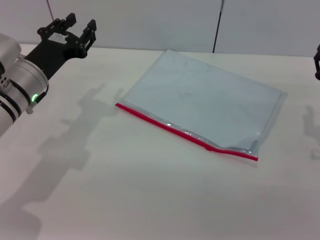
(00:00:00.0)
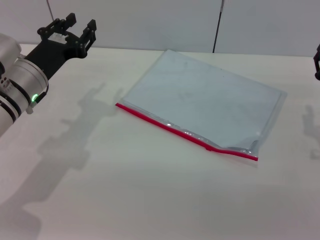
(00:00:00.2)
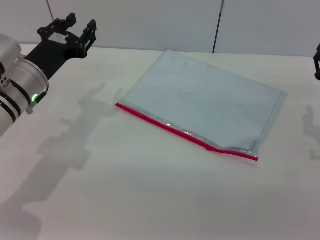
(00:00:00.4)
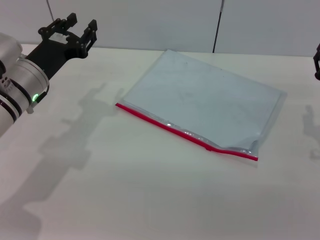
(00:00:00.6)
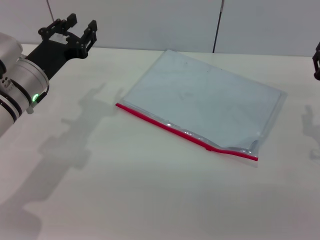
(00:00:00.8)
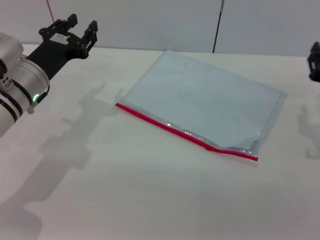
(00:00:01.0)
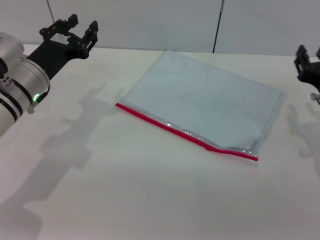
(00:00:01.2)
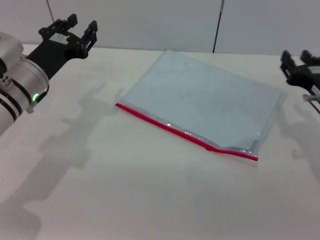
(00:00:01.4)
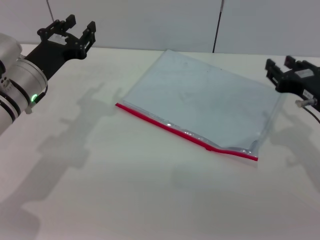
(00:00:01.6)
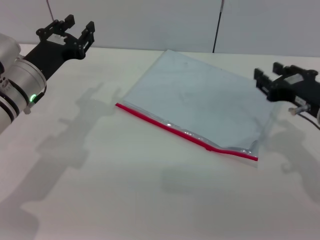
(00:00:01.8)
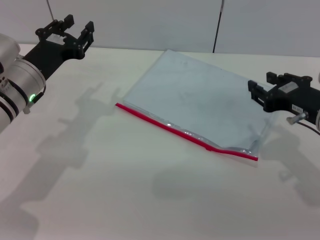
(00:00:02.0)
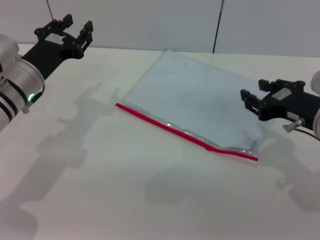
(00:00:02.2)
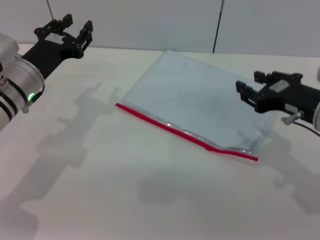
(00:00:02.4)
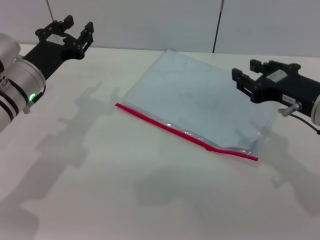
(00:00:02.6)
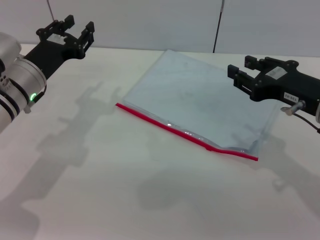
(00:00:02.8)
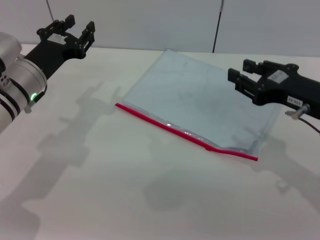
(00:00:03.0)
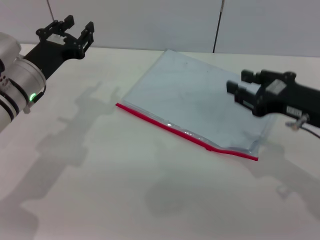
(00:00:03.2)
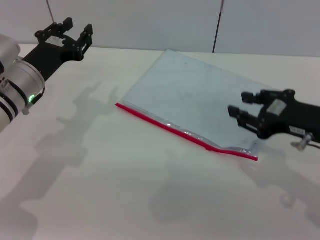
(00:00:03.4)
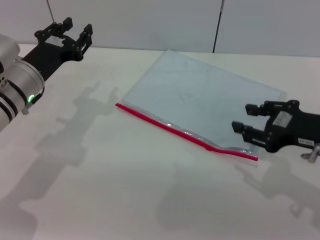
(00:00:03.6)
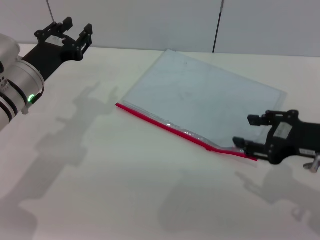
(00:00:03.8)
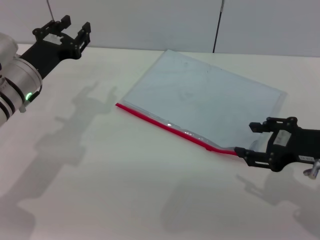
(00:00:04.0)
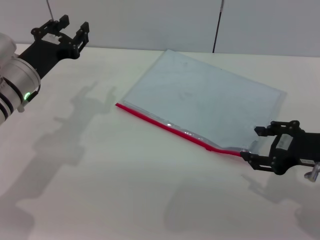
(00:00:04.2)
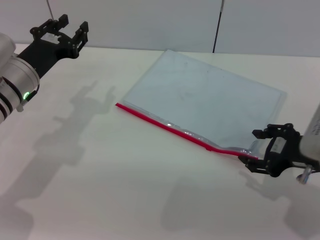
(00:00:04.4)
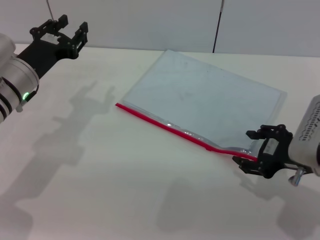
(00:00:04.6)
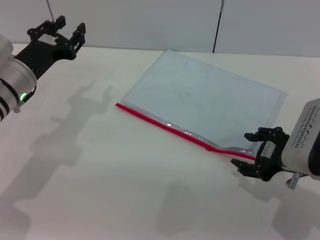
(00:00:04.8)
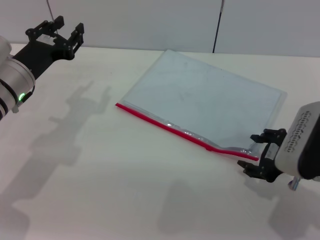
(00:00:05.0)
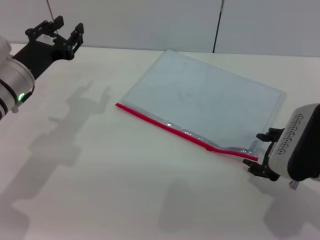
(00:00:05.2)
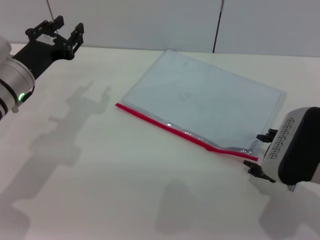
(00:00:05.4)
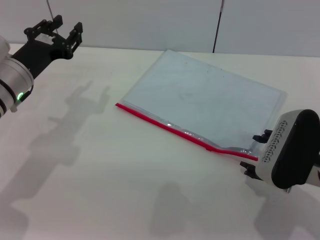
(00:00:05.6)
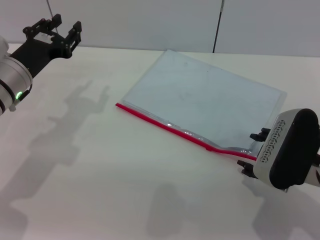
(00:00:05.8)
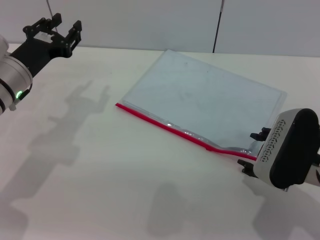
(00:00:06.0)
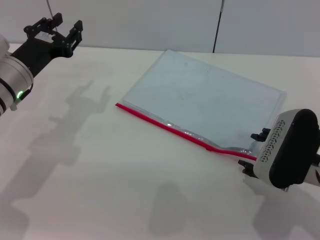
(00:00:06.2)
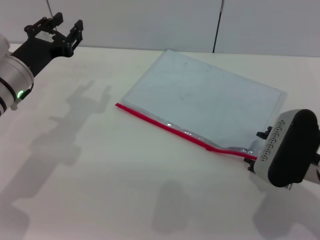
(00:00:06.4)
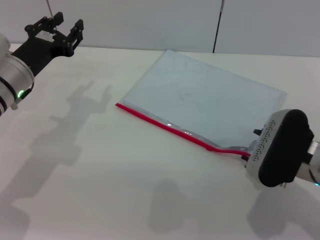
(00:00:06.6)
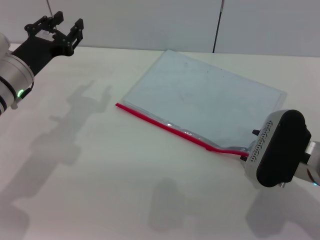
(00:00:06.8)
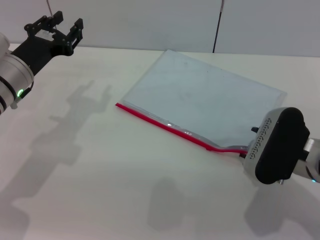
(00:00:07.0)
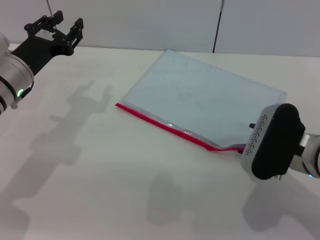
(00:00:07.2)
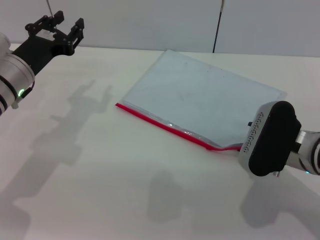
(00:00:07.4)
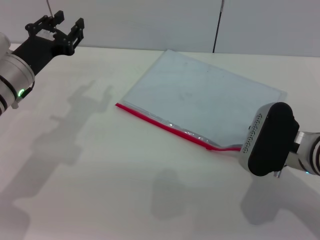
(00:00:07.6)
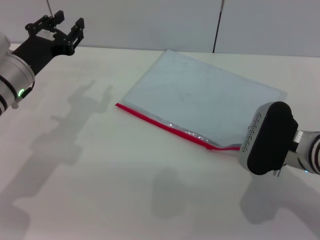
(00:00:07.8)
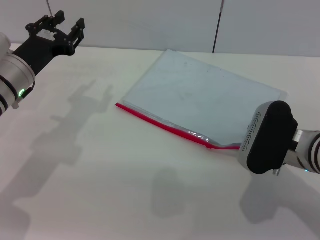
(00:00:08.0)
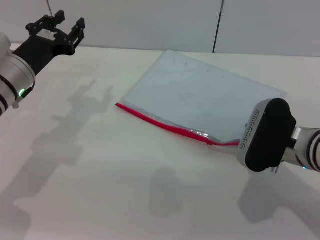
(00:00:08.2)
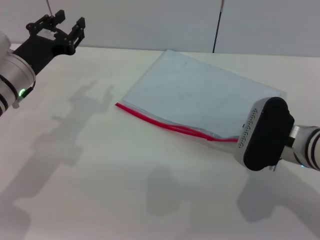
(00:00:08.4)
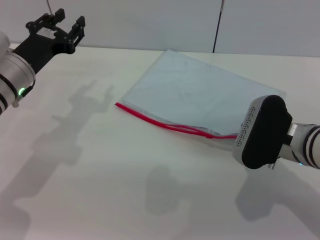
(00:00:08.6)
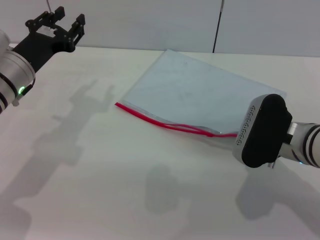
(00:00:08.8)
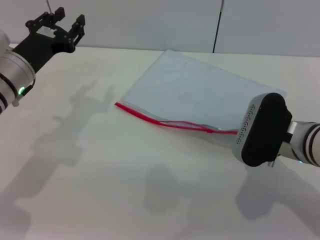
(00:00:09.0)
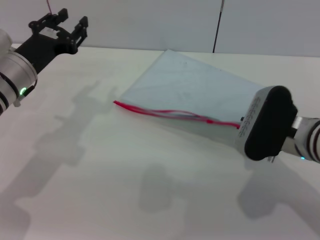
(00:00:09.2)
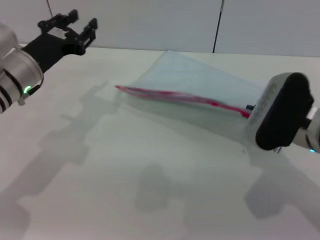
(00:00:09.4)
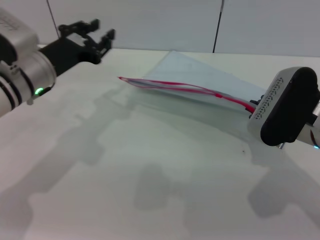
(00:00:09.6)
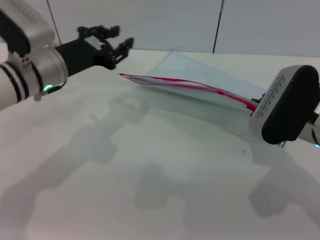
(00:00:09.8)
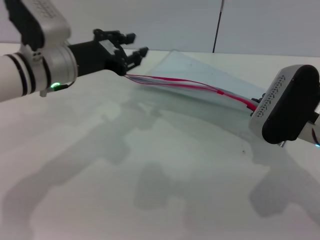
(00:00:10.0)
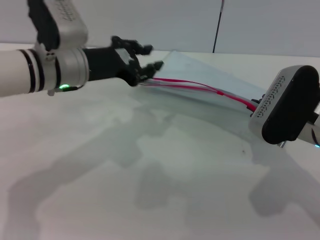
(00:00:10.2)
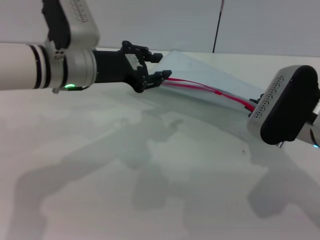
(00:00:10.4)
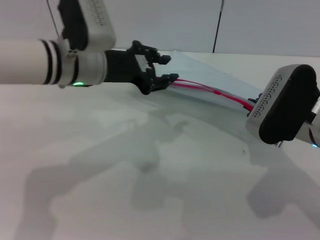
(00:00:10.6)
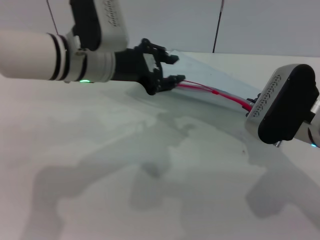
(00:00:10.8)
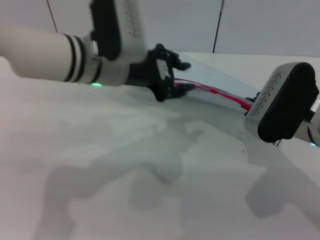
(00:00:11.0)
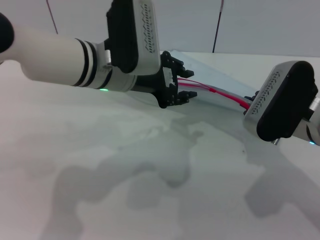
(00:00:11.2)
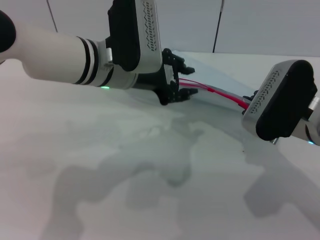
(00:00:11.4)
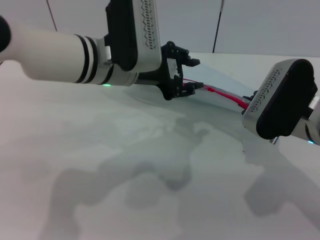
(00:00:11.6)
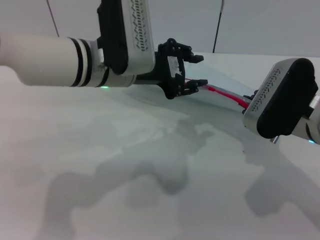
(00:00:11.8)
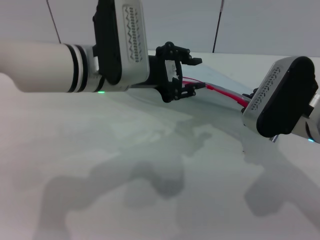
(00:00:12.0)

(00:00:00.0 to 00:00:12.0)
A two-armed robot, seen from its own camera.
Step, 00:00:00.0 - 00:00:09.8: Pick up the transparent plastic bag with the right gripper.
00:00:03.0 - 00:00:04.4: The right gripper opens its fingers.
00:00:04.4 - 00:00:06.0: The grippers stay close to where they were, moving slightly.
00:00:06.0 - 00:00:07.6: The grippers make only small movements.
00:00:07.6 - 00:00:09.0: The right gripper closes its fingers.
00:00:09.0 - 00:00:10.4: The left gripper is displaced to the right by some 10 cm.
00:00:10.4 - 00:00:12.0: The left gripper heads to the right, covering approximately 5 cm.

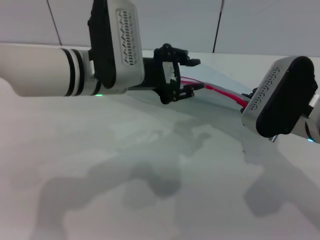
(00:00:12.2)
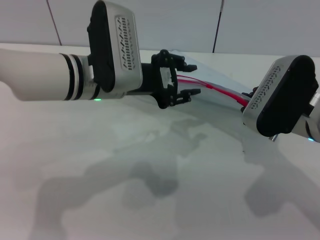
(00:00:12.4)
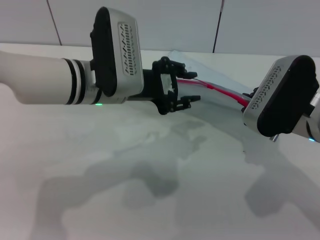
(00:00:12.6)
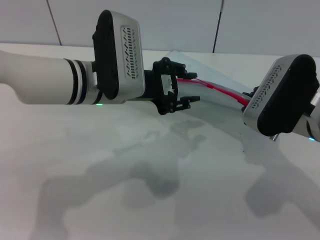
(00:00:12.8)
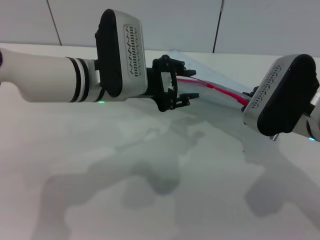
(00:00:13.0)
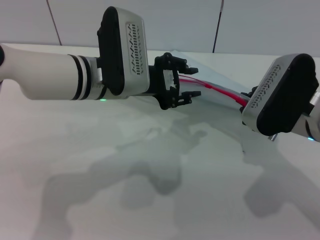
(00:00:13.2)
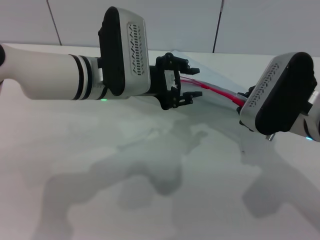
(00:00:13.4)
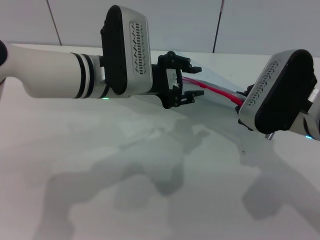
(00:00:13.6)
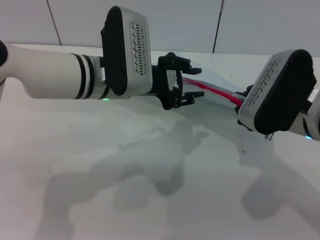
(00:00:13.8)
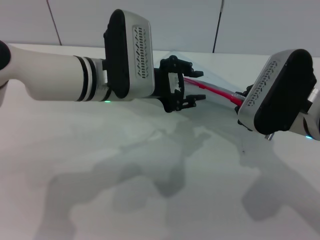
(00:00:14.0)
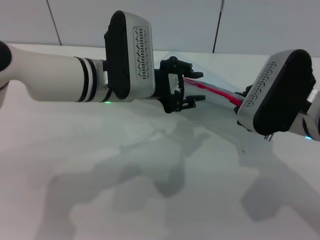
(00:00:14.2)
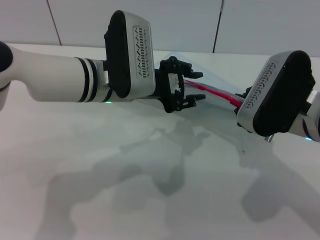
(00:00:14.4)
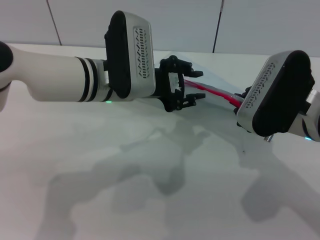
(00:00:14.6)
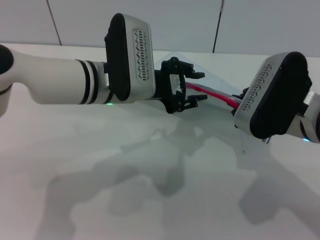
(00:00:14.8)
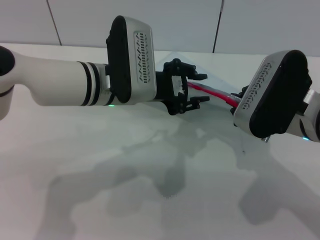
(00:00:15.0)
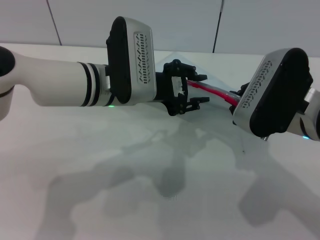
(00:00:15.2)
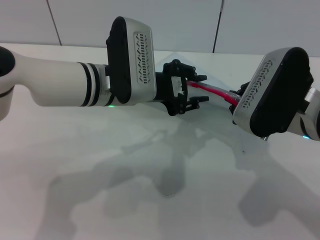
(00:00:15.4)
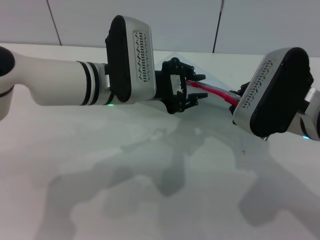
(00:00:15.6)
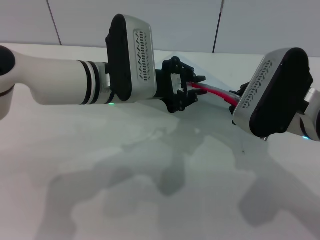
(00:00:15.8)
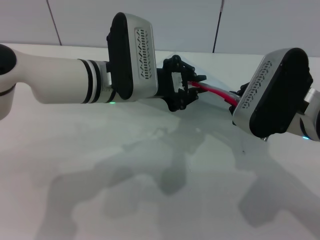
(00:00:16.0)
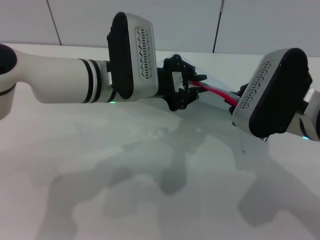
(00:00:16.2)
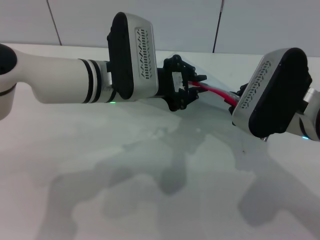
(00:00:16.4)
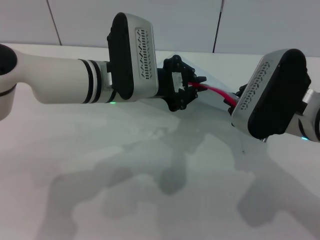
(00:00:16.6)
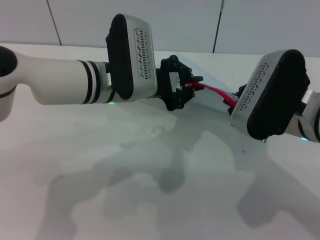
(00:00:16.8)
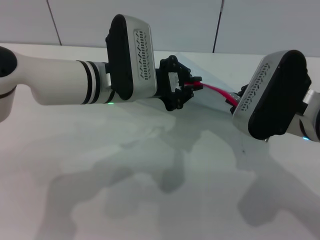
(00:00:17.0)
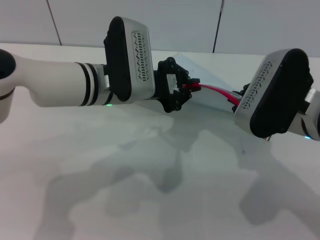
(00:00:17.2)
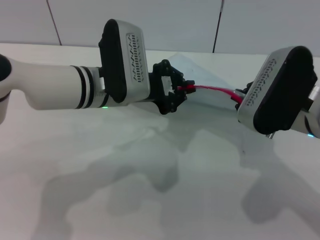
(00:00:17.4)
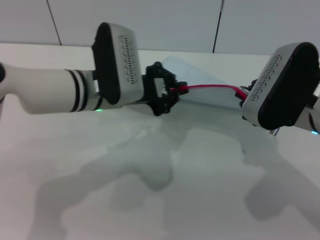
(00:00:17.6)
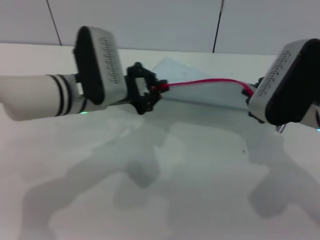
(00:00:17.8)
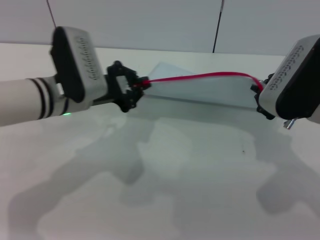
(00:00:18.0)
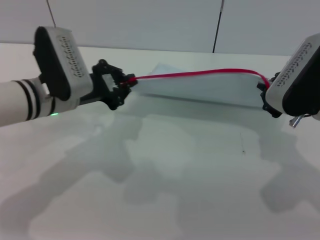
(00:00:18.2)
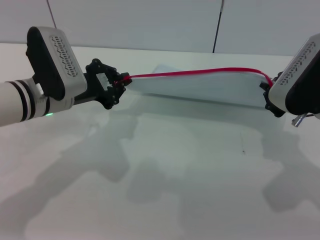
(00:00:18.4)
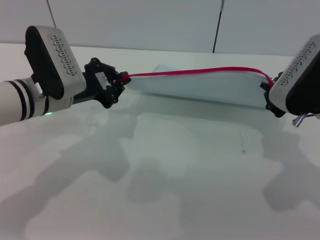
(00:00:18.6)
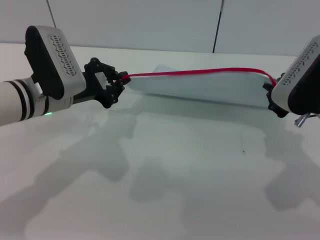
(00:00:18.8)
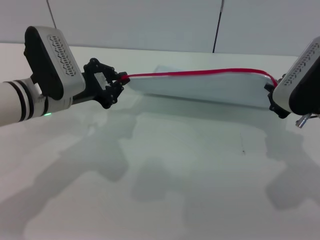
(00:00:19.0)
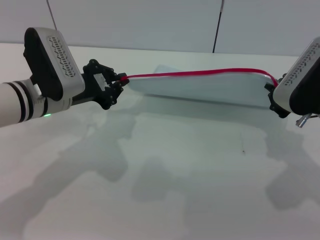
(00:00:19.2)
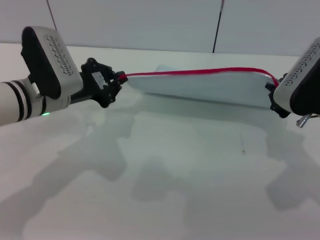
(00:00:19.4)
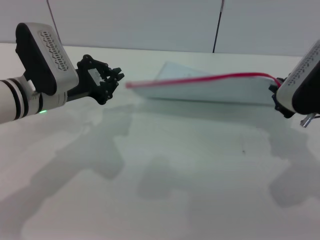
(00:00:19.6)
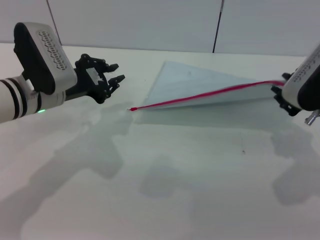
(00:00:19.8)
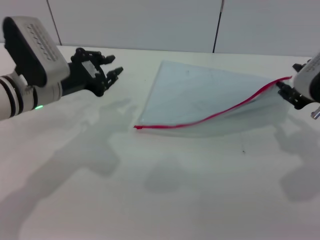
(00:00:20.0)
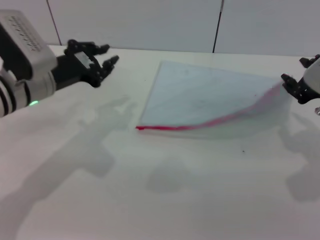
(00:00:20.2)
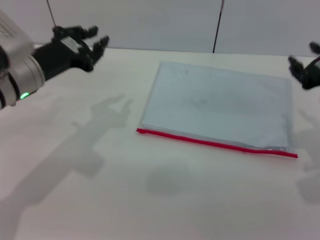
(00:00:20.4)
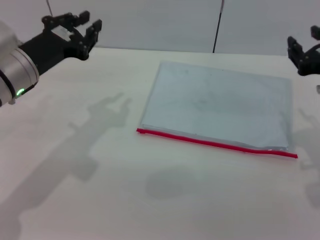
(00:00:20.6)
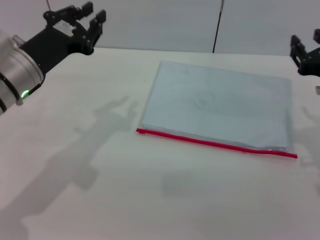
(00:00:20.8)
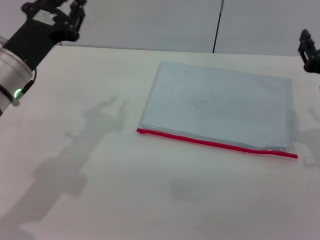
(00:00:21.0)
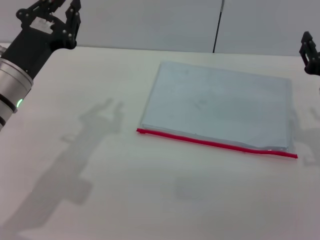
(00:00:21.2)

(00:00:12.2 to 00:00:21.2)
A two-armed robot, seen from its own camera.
Step, 00:00:12.2 - 00:00:19.8: Pulling up the zipper on the transparent plastic bag with the left gripper to close it.
Step, 00:00:20.0 - 00:00:20.4: Place the transparent plastic bag.
00:00:12.2 - 00:00:13.8: The grippers stay close to where they were, moving slightly.
00:00:13.8 - 00:00:15.2: Both grippers stay about where they are.
00:00:15.2 - 00:00:16.6: The left gripper closes its fingers.
00:00:16.6 - 00:00:18.2: The left gripper travels to the left by approximately 10 cm.
00:00:18.2 - 00:00:19.8: The grippers make only small movements.
00:00:19.8 - 00:00:21.2: The right gripper moves roughly 5 cm, and opens up, while the left gripper shifts by roughly 5 cm.
